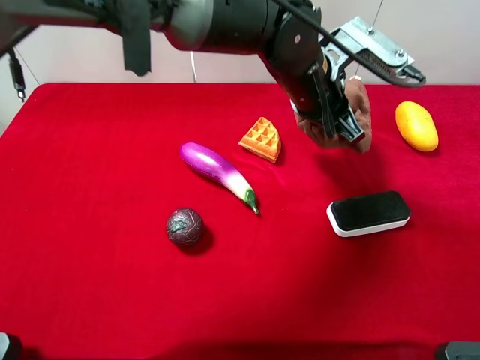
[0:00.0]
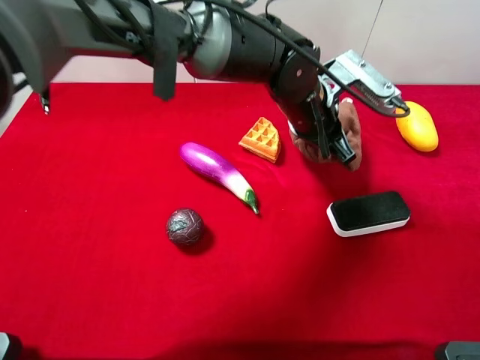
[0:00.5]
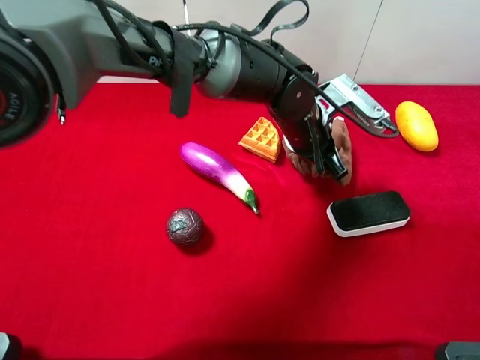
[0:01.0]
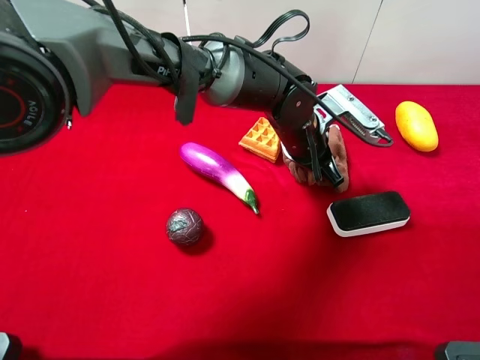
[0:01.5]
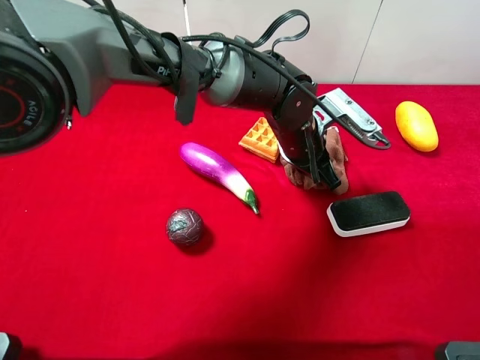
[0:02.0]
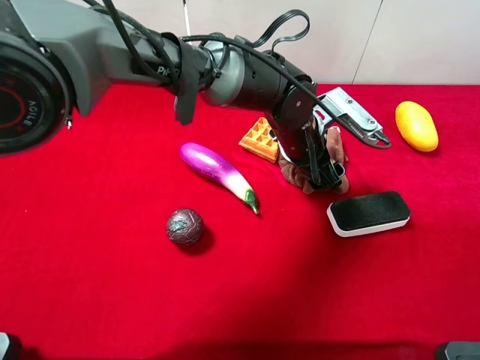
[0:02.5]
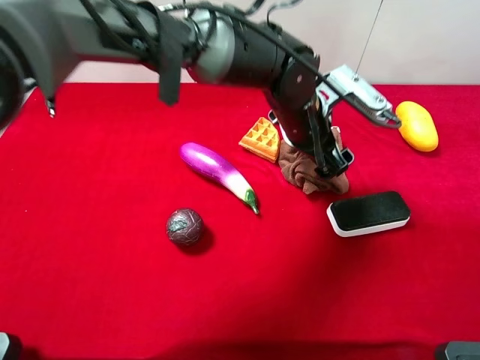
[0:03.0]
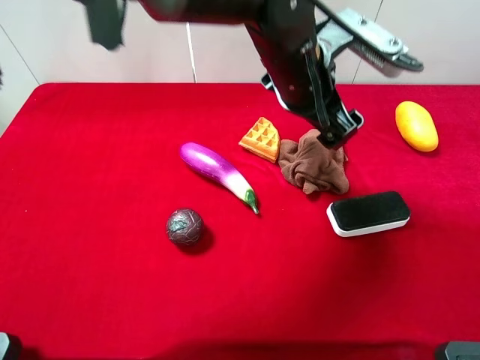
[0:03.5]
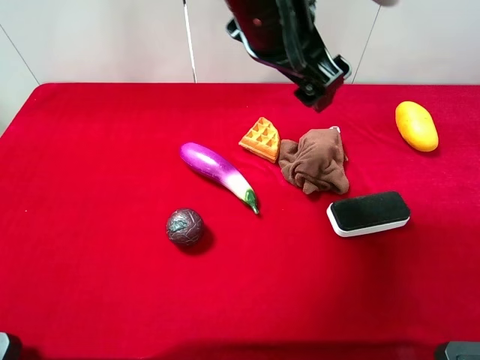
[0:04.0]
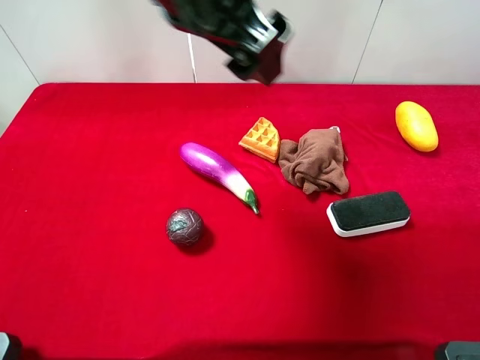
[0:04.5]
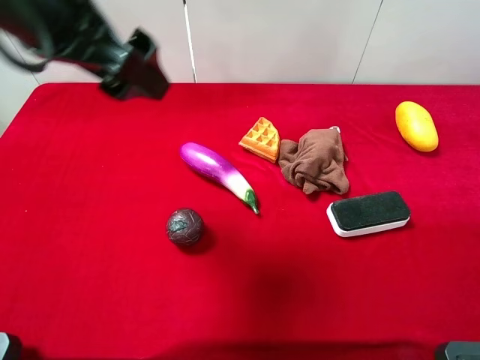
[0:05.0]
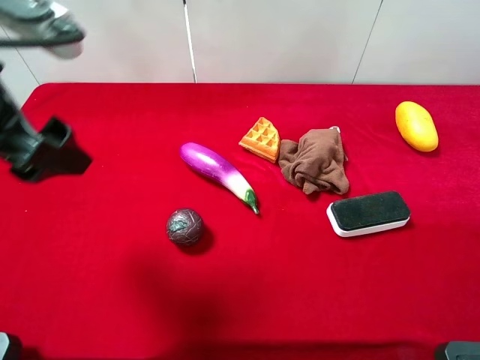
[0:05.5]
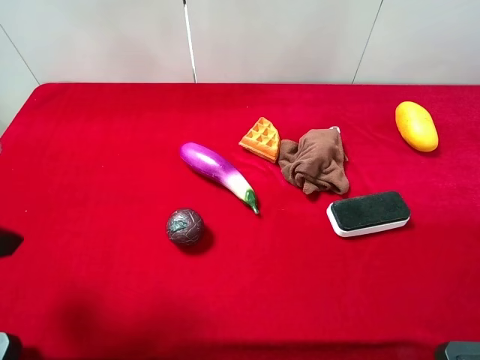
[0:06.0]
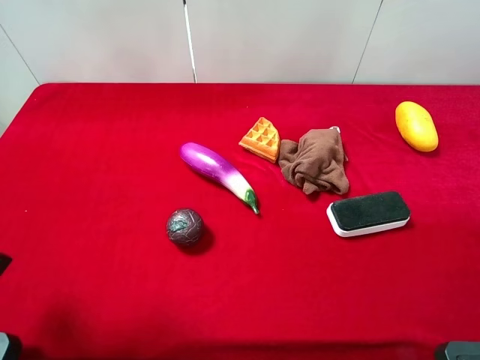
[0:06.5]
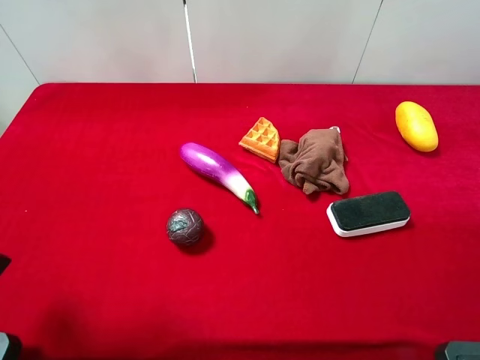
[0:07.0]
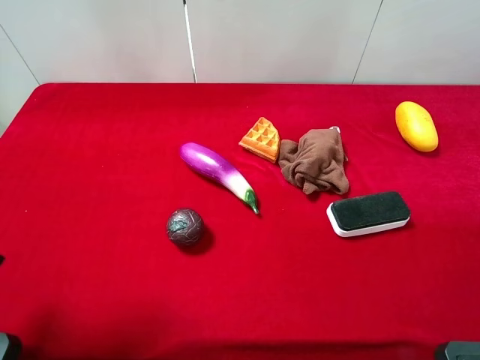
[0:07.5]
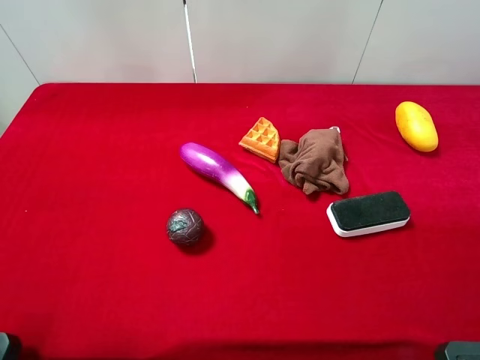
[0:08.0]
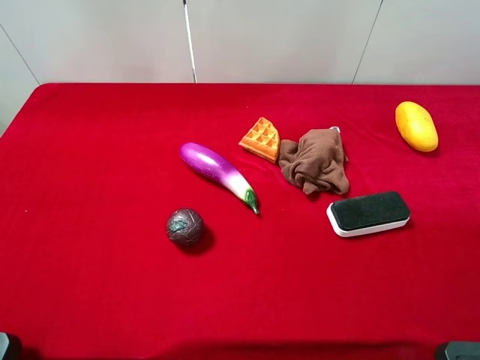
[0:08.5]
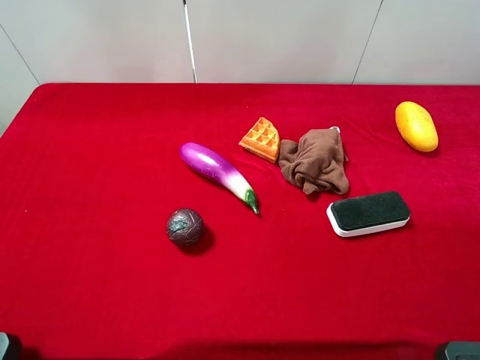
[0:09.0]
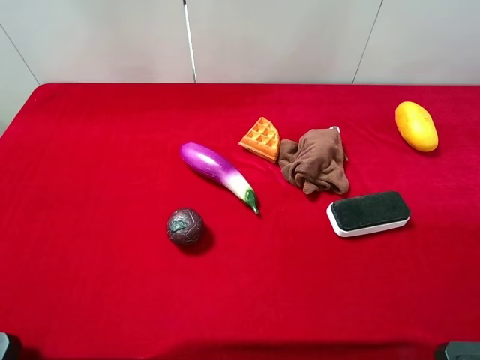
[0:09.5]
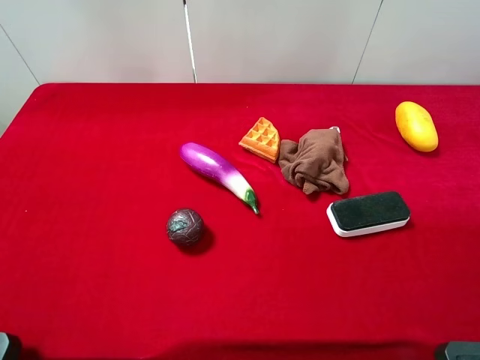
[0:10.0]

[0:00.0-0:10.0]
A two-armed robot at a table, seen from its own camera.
Task of the whole recording: the gripper move the object.
Step, 0:00.0 to 0:03.5: Place the brown towel on the table with the left gripper.
0:00.0 to 0:02.0: The left gripper travels downward by some 10 cm.
0:02.0 to 0:04.0: The left gripper is displaced upward by about 20 cm, and opens.
0:04.0 to 0:06.0: The left gripper travels to the left and backward by about 35 cm.
